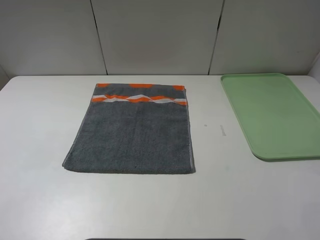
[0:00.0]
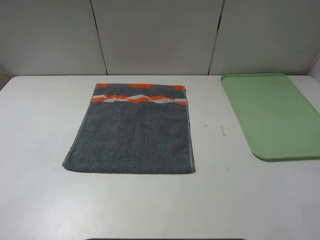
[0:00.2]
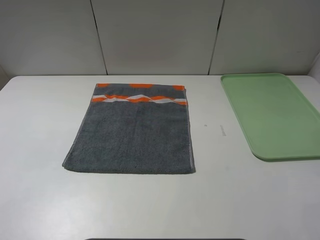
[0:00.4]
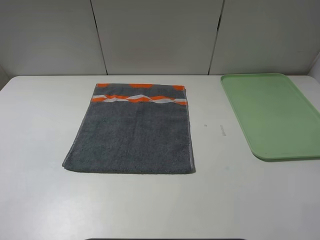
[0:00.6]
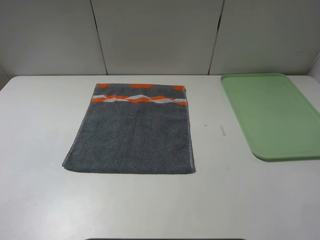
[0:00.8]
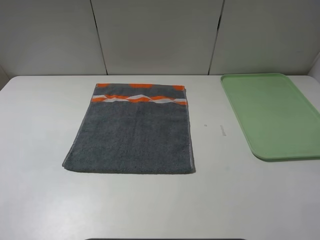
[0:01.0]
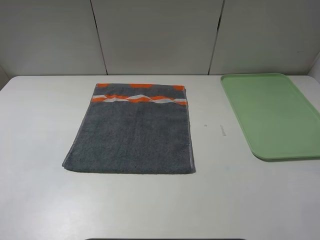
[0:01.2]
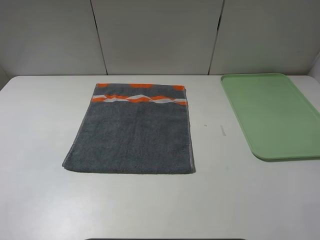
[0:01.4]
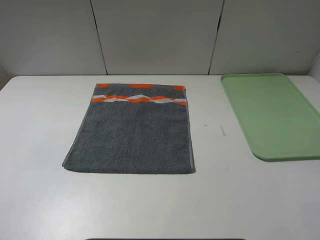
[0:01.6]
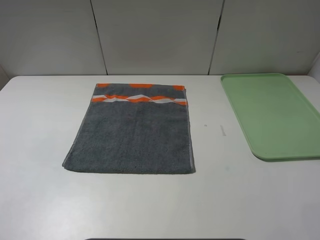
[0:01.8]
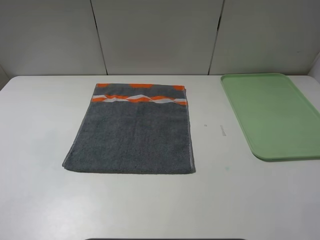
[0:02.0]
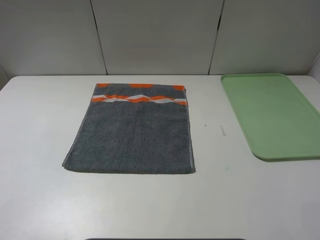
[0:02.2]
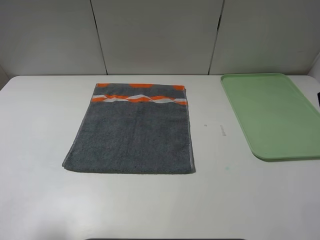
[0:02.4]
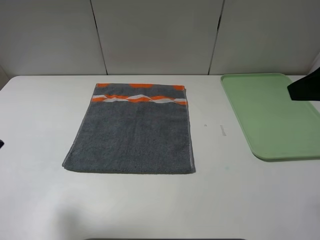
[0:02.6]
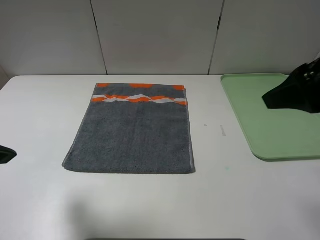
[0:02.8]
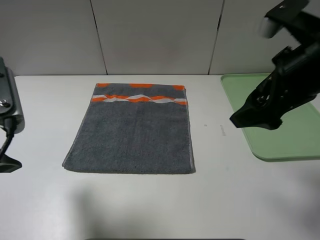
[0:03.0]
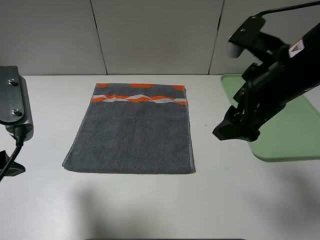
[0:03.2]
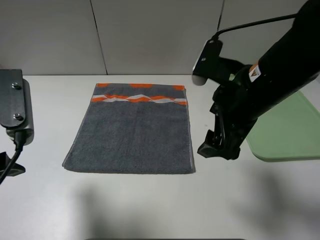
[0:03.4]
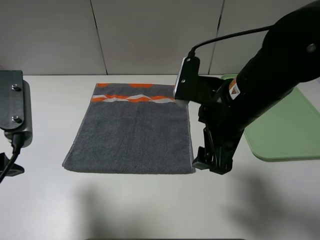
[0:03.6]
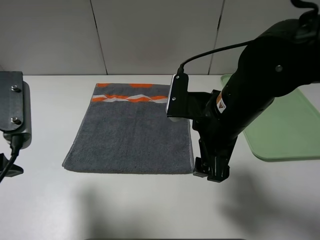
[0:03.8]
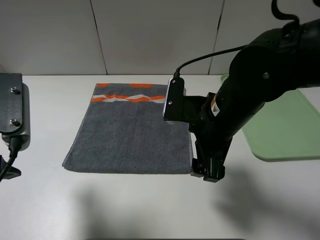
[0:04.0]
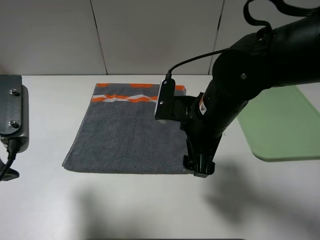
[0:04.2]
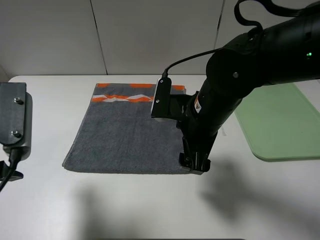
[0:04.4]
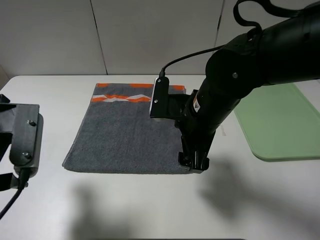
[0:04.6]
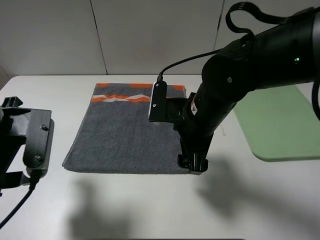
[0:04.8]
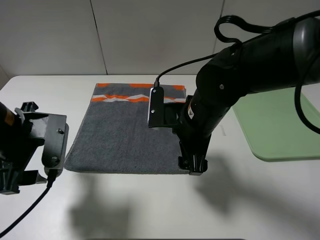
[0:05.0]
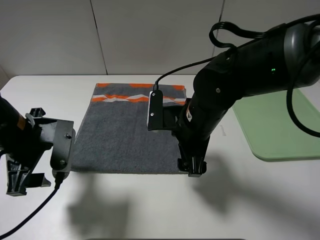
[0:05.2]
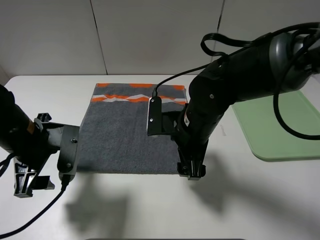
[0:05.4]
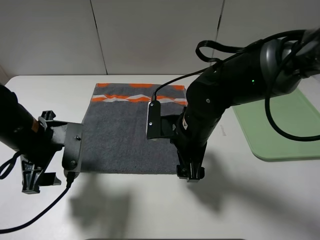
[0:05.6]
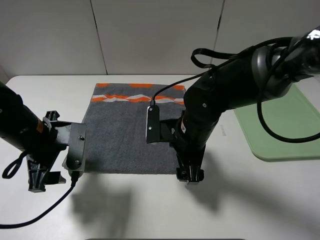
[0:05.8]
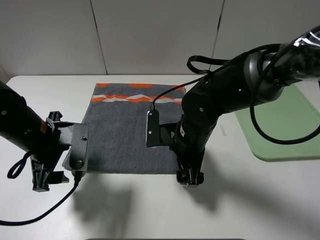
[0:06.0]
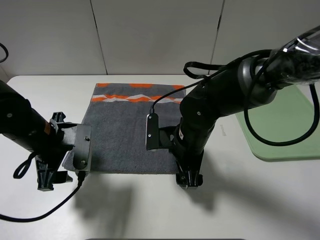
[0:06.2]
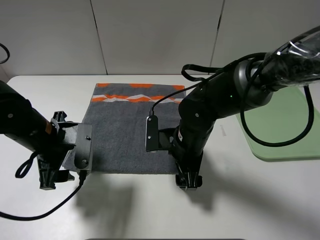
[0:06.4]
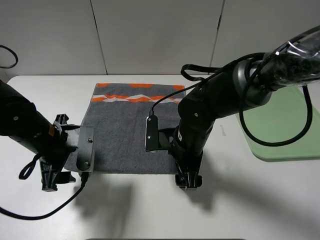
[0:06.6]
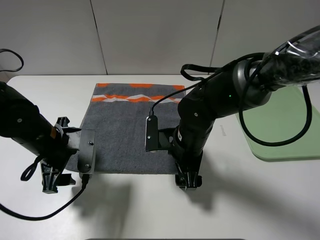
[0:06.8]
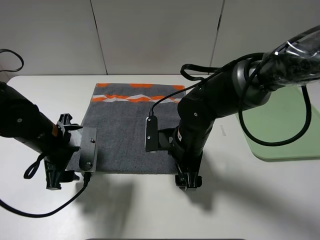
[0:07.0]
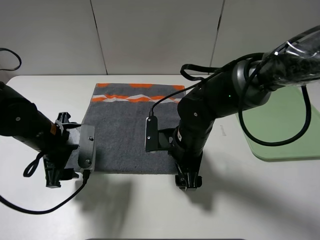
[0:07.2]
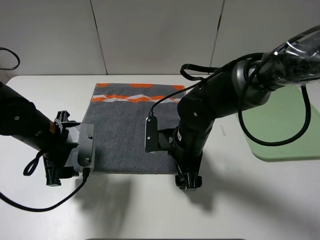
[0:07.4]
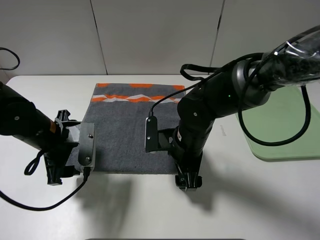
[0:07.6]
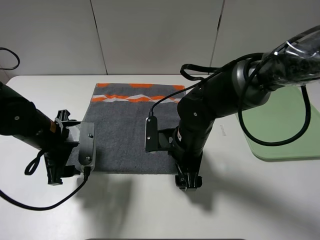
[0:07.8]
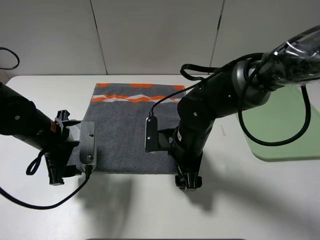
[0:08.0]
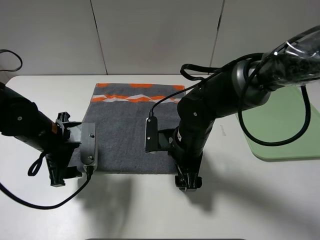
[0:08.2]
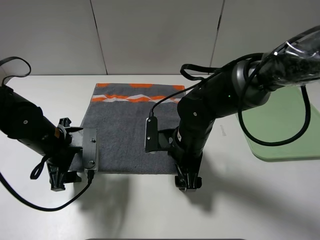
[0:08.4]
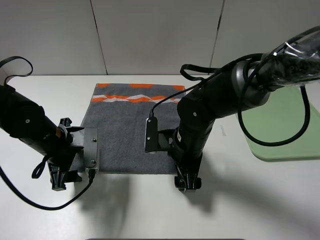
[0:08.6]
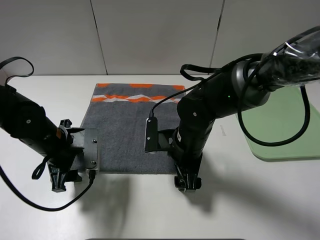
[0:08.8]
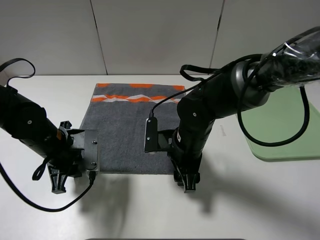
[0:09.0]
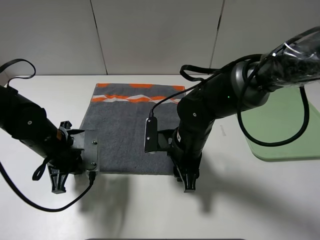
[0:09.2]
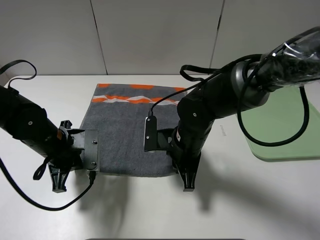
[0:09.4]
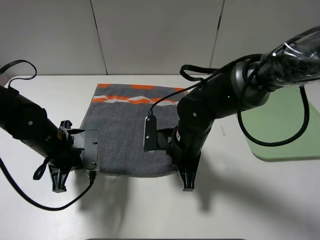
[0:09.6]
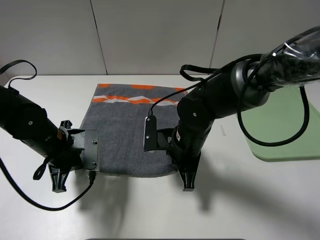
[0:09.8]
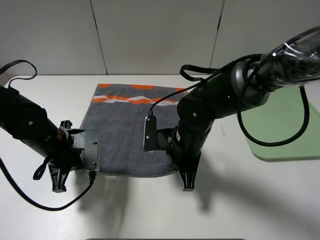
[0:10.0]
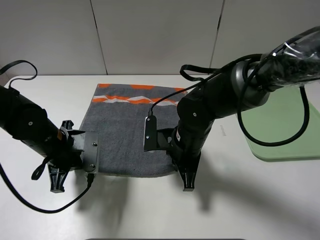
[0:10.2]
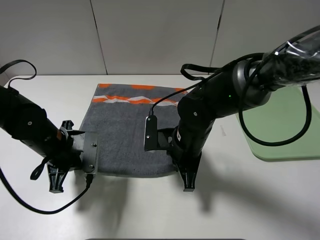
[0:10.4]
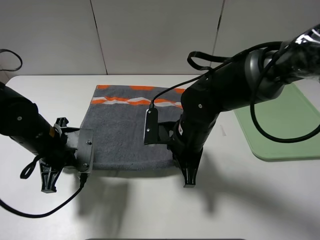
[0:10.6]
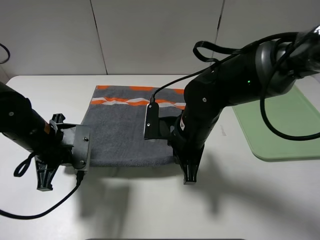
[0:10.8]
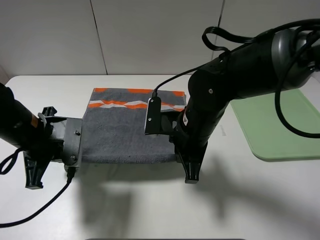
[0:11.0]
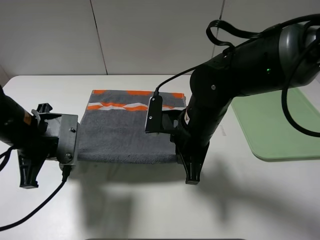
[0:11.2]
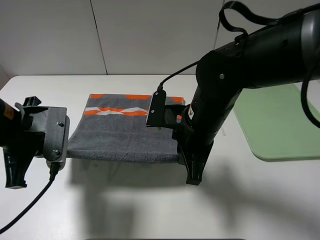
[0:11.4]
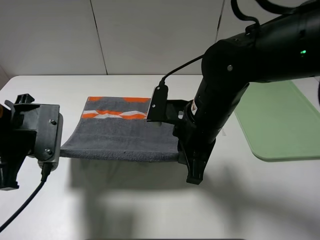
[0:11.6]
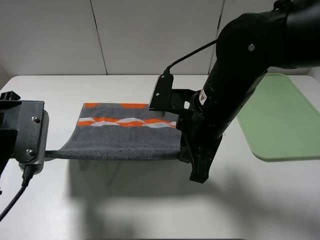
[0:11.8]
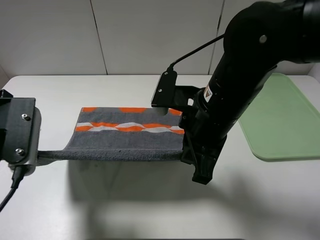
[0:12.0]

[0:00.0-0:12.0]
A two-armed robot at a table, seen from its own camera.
0:00.0 to 0:01.6: Both grippers stay put.
0:01.6 to 0:03.0: The left gripper travels forward by some 15 cm. Meanwhile the right gripper shifts about 25 cm forward and to the left.
0:03.0 to 0:04.4: The right gripper travels to the left and downward by about 15 cm.
0:04.4 to 0:06.0: The left gripper shifts about 15 cm downward and forward; the right gripper travels downward by about 5 cm.
0:06.0 to 0:07.6: The grippers make only small movements.
0:07.6 to 0:09.0: The left gripper closes its fingers.
0:09.0 to 0:10.4: The left gripper closes; the right gripper closes.
0:10.4 to 0:12.0: The right gripper travels upward by approximately 15 cm, while the left gripper is displaced upward and backward by some 15 cm.

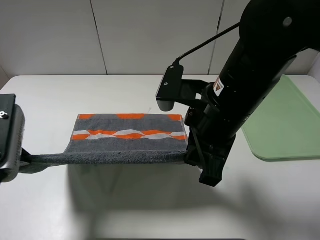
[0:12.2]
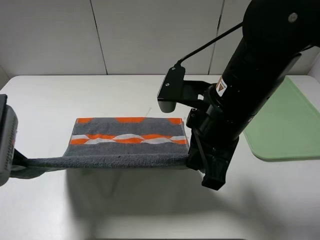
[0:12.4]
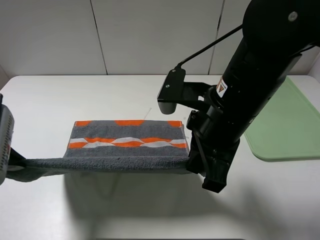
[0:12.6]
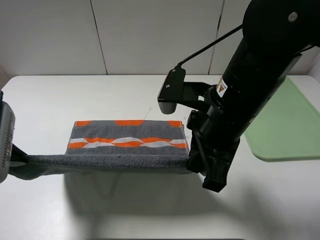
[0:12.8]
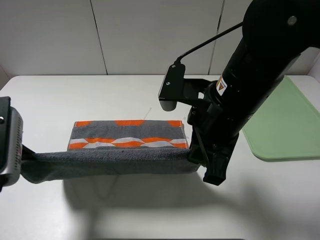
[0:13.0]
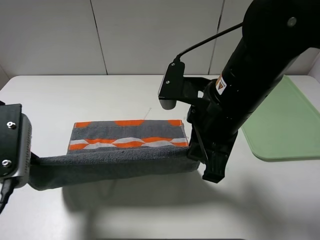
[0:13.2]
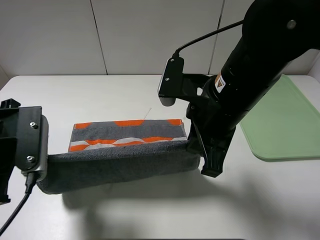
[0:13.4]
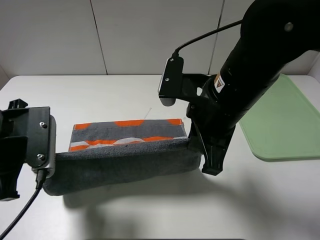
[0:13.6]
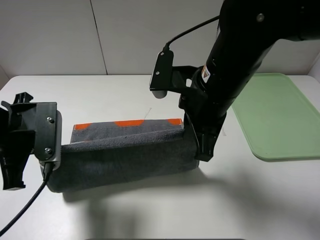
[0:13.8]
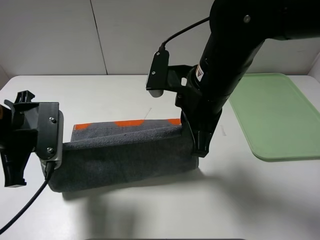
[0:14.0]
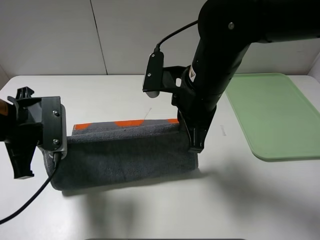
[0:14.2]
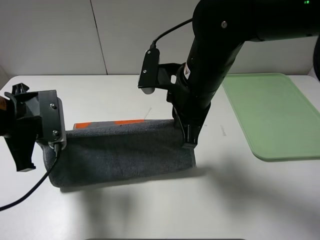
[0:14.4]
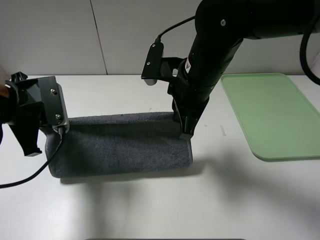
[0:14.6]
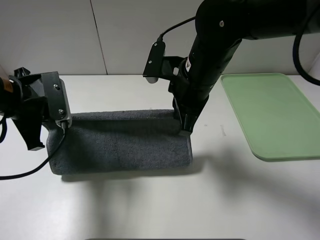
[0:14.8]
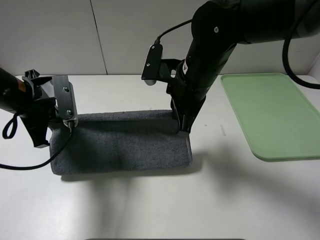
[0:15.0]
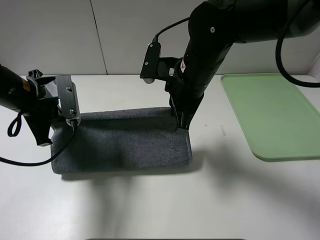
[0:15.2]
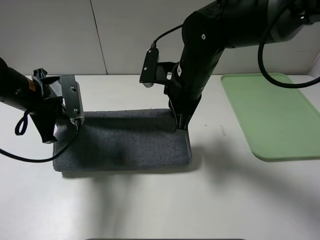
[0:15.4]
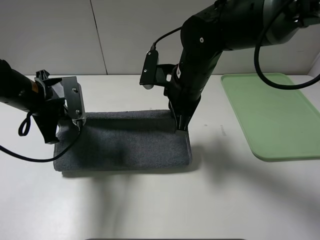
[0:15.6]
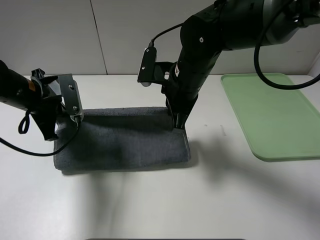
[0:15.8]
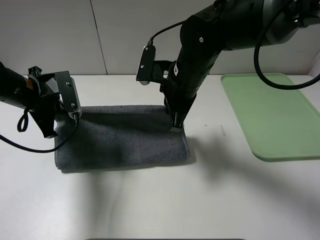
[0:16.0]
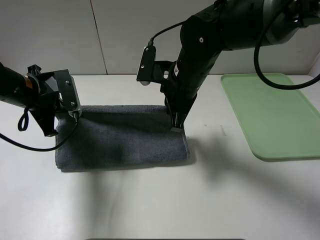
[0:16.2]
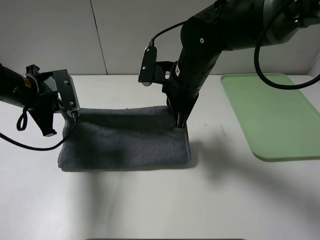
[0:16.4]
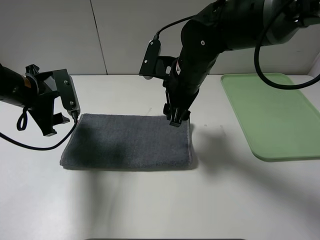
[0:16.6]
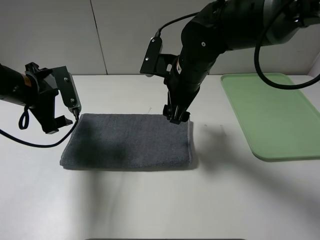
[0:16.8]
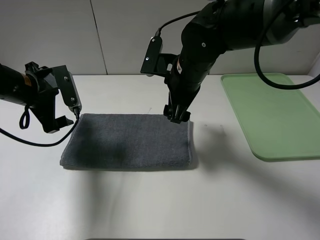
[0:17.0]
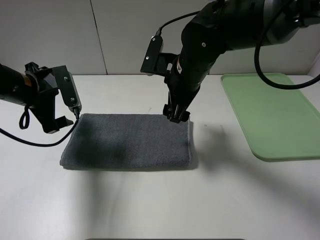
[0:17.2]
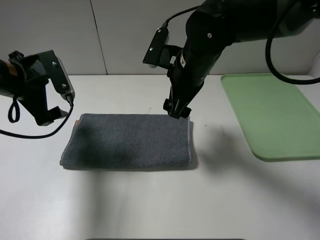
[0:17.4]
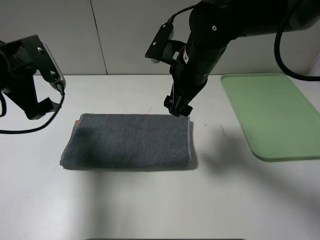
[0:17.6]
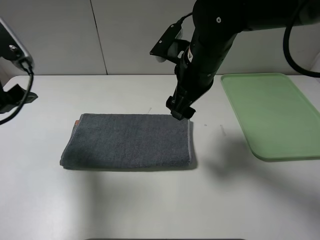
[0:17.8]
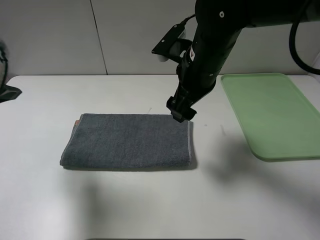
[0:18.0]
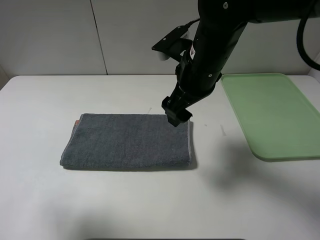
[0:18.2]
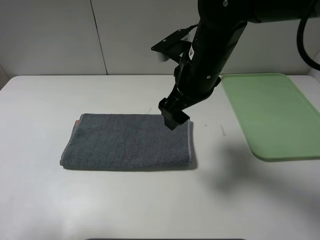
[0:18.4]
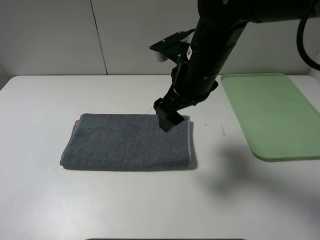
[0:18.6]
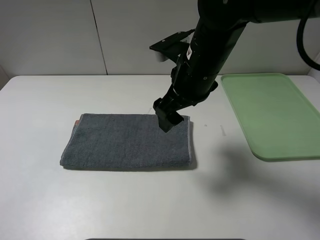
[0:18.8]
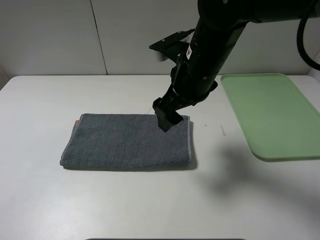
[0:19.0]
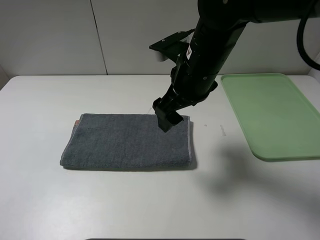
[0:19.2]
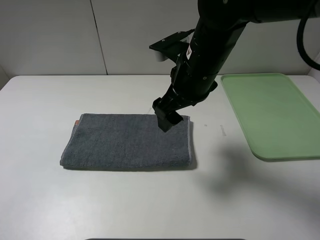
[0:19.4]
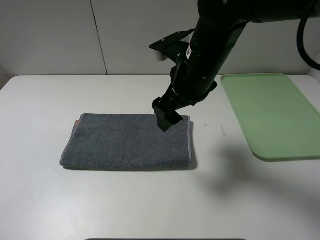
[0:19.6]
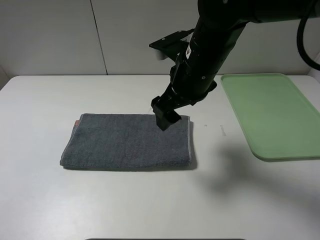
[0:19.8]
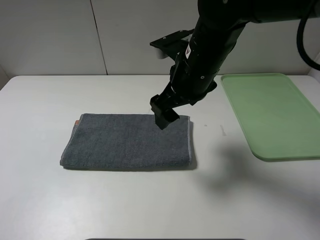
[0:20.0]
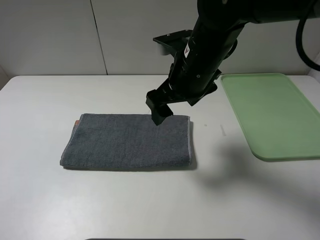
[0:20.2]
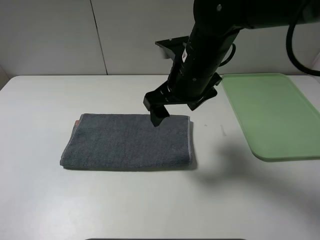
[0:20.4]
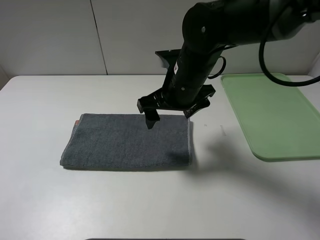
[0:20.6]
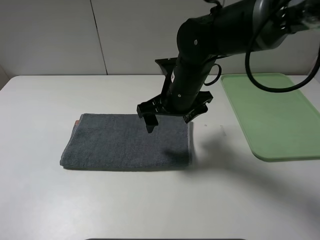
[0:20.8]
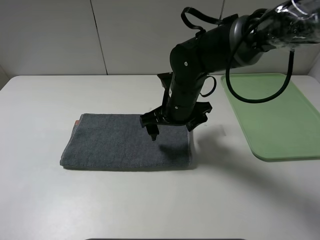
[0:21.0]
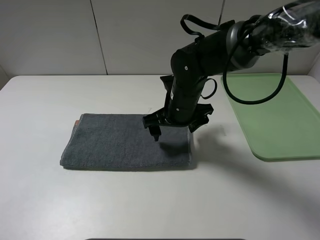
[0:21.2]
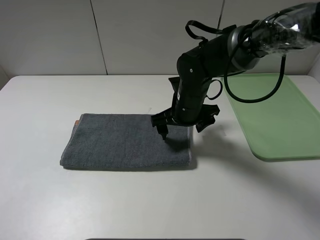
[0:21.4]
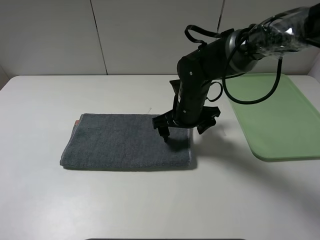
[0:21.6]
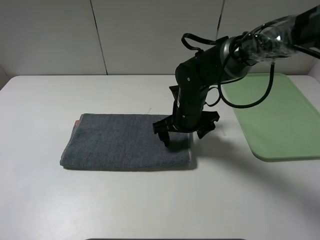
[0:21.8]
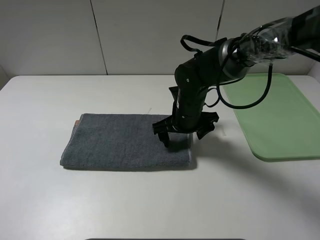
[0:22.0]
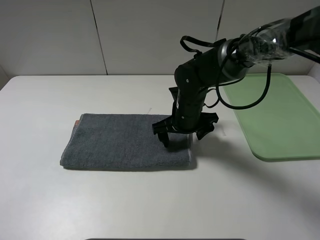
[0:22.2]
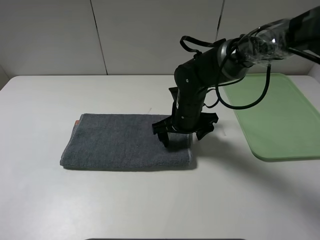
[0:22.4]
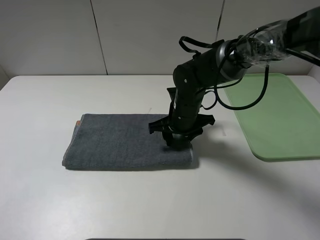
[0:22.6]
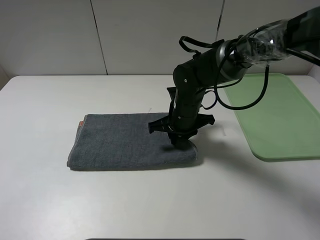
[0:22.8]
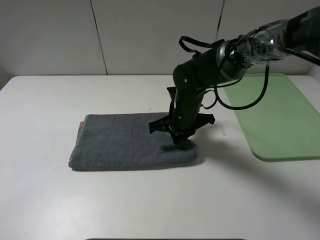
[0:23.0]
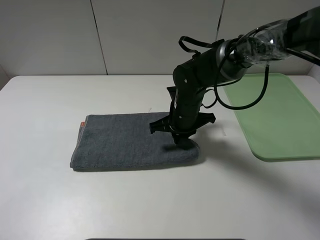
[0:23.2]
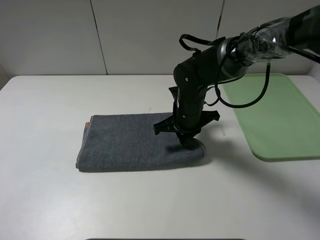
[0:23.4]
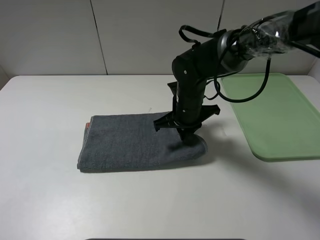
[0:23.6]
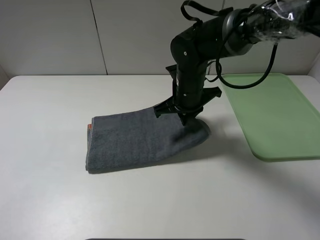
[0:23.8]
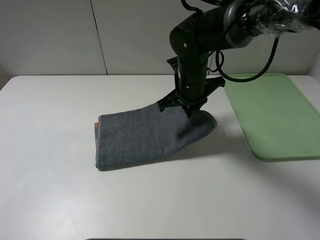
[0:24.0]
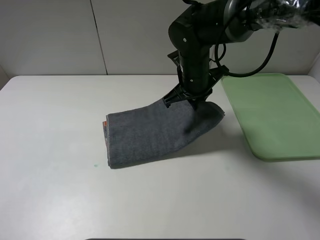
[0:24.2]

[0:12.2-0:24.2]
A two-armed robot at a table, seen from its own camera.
Step, 0:12.2 to 0:16.8: Fold the grey towel upwards.
0:12.2 to 0:13.8: The left gripper ends up roughly 5 cm from where it was.
0:13.8 to 0:15.2: Both grippers travel together forward, about 10 cm.
0:15.2 to 0:16.6: The right gripper opens; the left gripper opens.
0:16.6 to 0:18.2: The right gripper ends up roughly 5 cm from where it was, while the left gripper heads backward and upward, covering approximately 25 cm.
0:18.2 to 0:19.8: The left gripper goes roughly 15 cm backward and downward.
0:19.8 to 0:21.2: The right gripper goes roughly 10 cm downward.
0:21.2 to 0:22.6: The right gripper closes its fingers.
0:22.6 to 0:24.2: The right gripper heads upward, covering some 10 cm, and closes its fingers.
